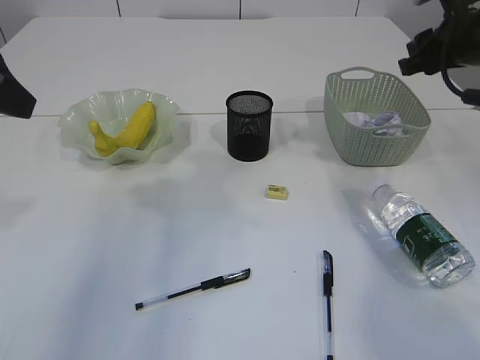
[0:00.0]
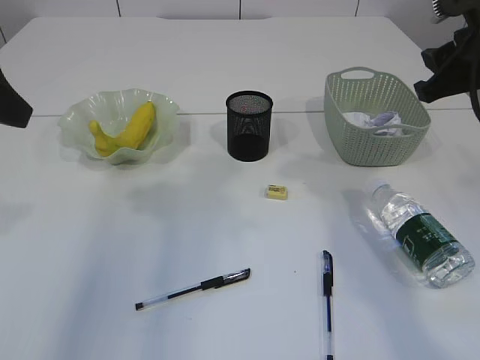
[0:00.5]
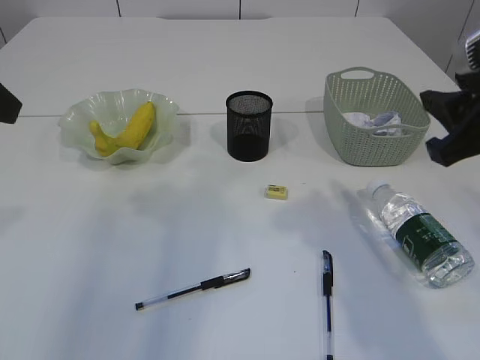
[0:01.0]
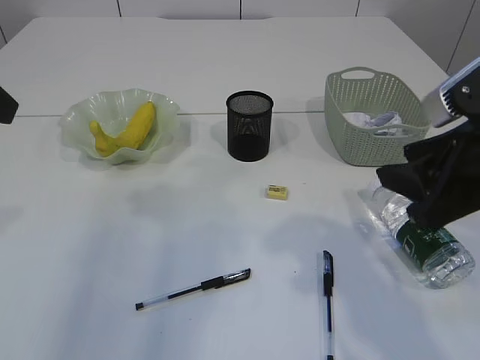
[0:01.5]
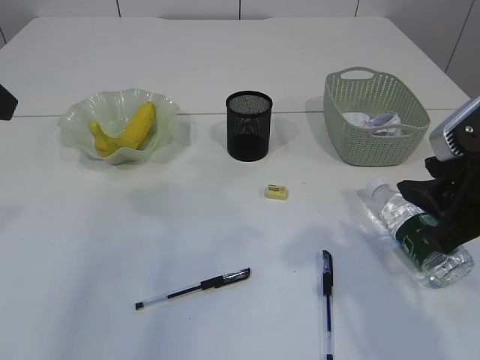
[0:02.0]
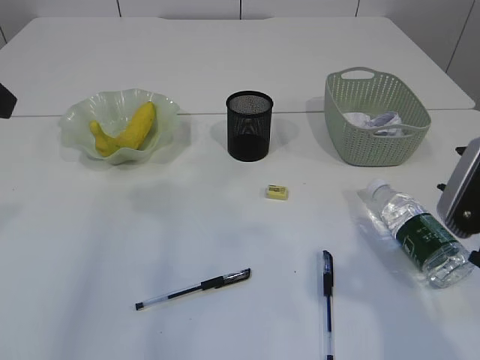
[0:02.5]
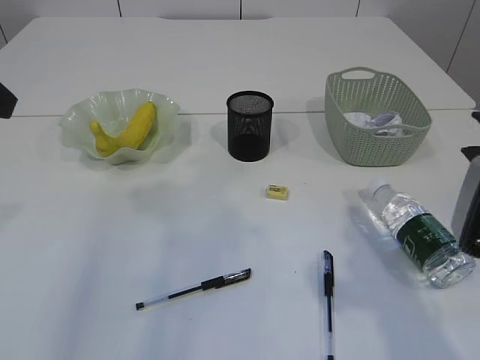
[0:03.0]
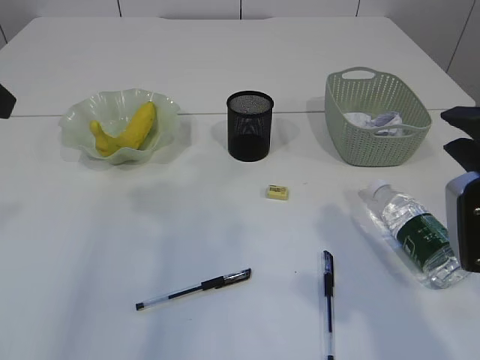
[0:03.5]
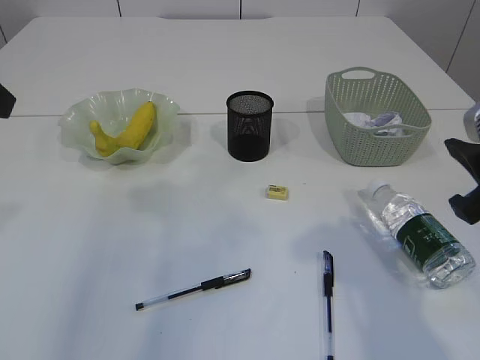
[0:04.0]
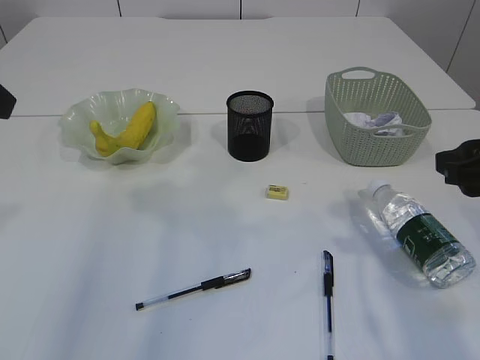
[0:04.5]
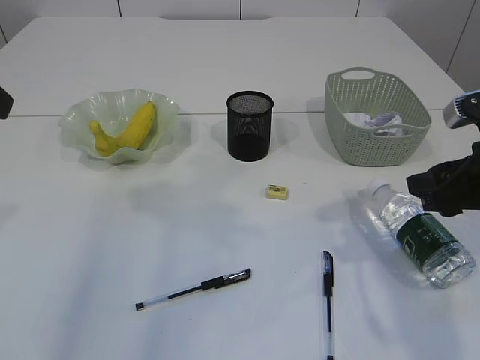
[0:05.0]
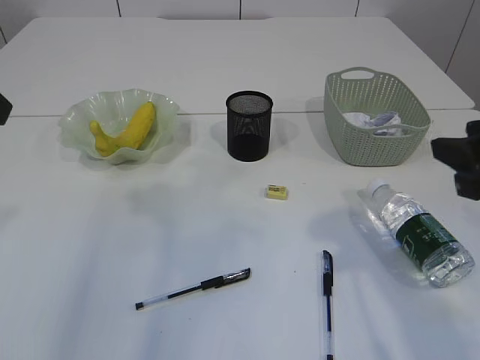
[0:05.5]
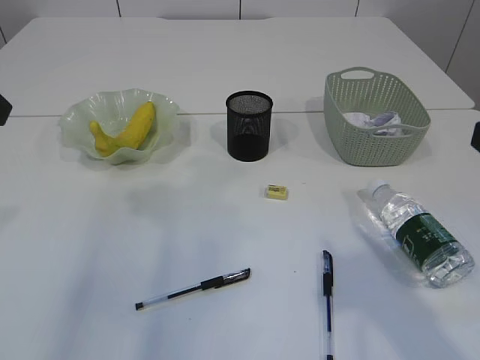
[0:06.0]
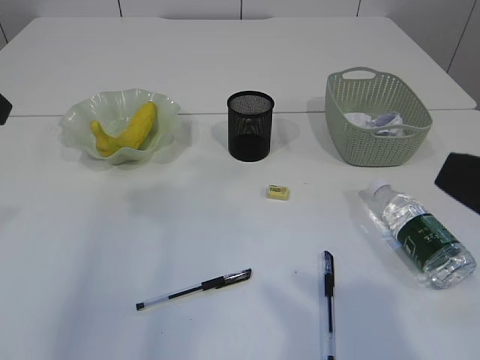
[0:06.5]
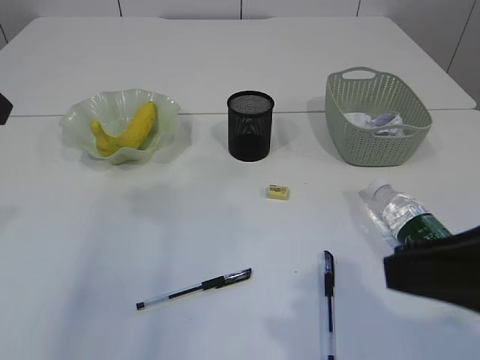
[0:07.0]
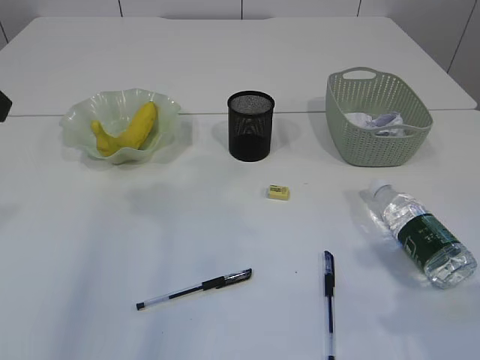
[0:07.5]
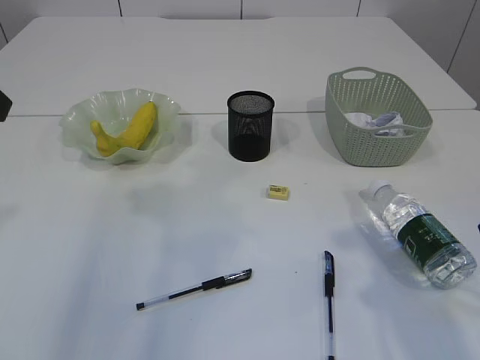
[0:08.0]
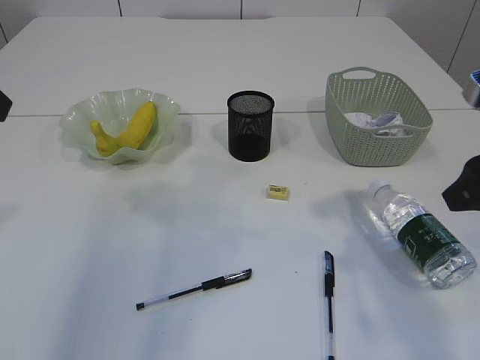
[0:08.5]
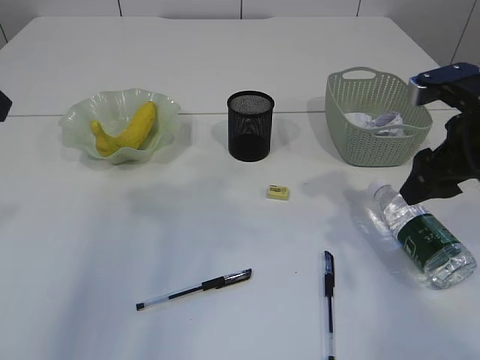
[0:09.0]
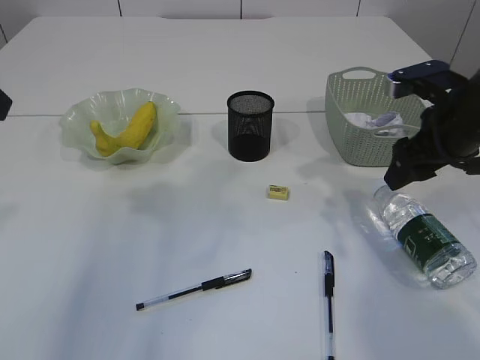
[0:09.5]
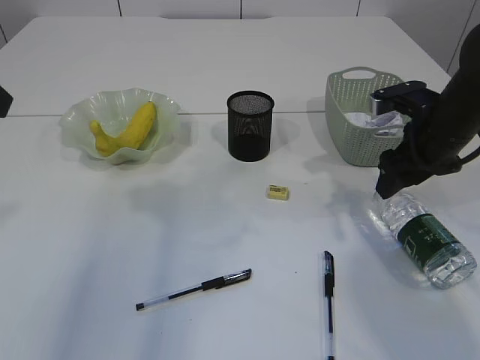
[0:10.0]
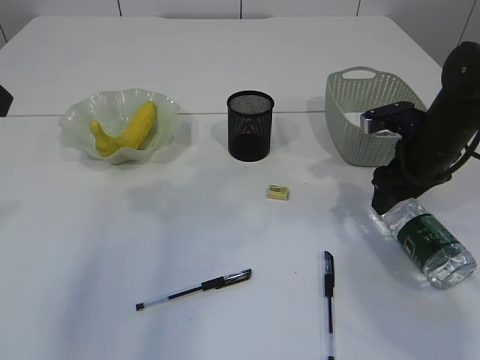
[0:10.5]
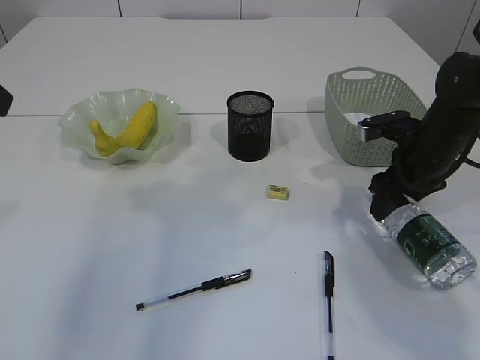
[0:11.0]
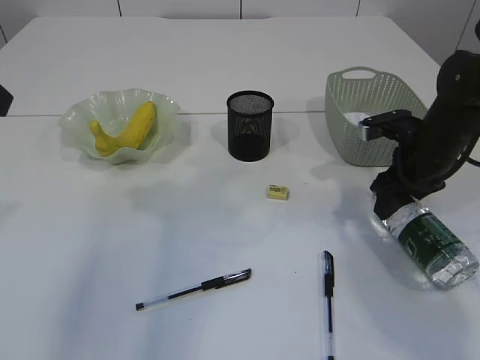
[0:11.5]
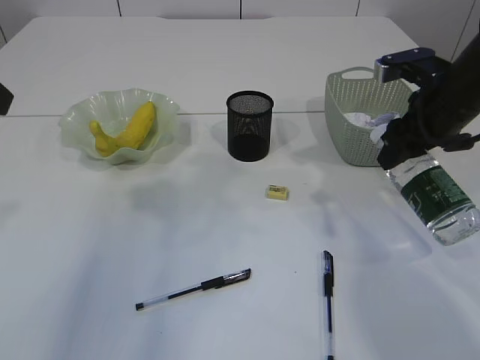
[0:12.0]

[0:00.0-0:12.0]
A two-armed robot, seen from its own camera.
0:00.0 to 0:02.0: The right gripper is displaced backward by roughly 20 cm.
0:04.0 to 0:06.0: The right gripper travels backward by approximately 5 cm.
0:06.0 to 0:08.0: The right gripper moves approximately 5 cm.
0:08.0 to 0:10.0: The right gripper travels forward by about 20 cm.
0:10.0 to 0:12.0: There are only small adjustments of the grippers.

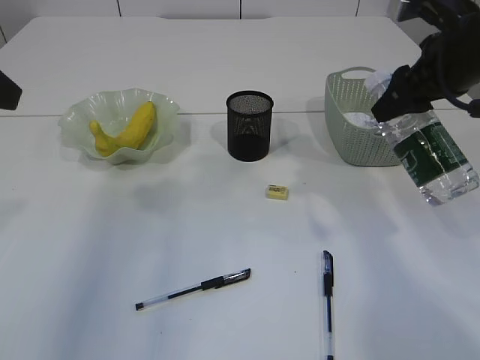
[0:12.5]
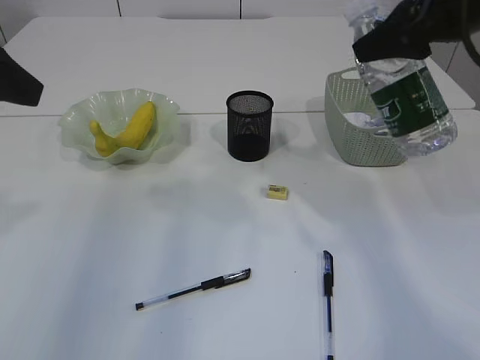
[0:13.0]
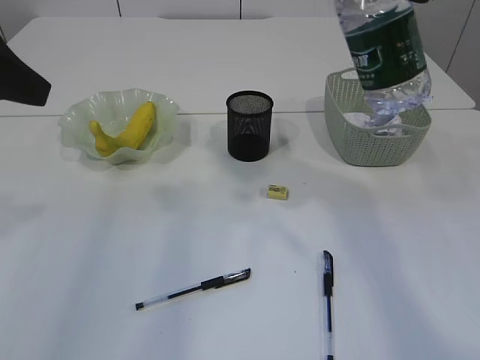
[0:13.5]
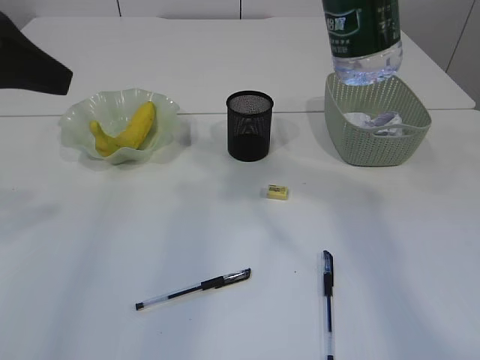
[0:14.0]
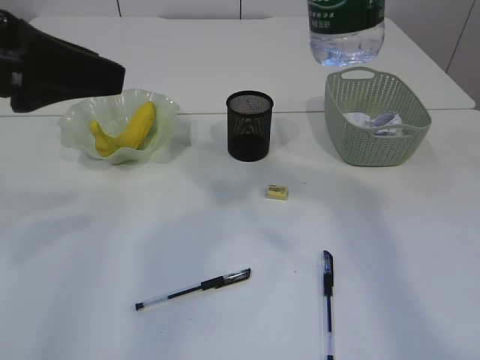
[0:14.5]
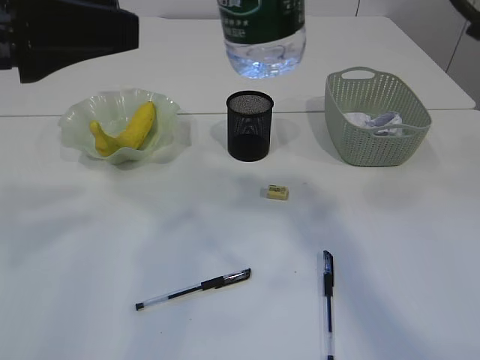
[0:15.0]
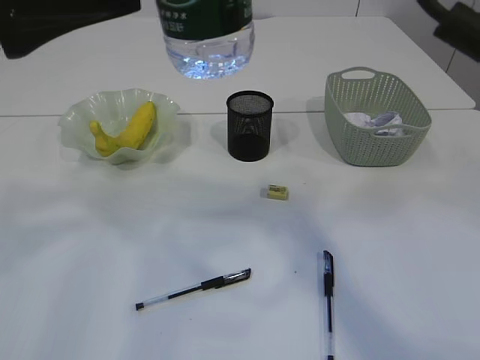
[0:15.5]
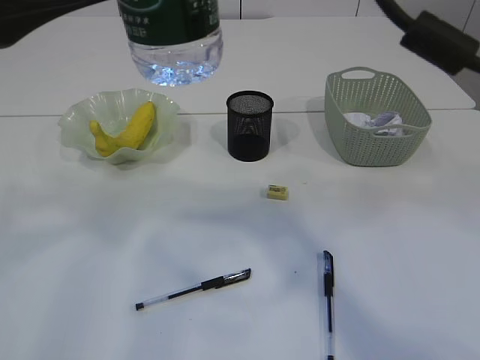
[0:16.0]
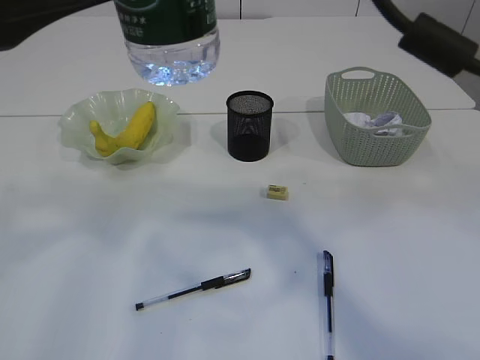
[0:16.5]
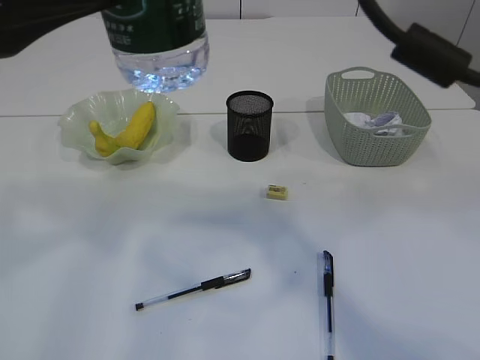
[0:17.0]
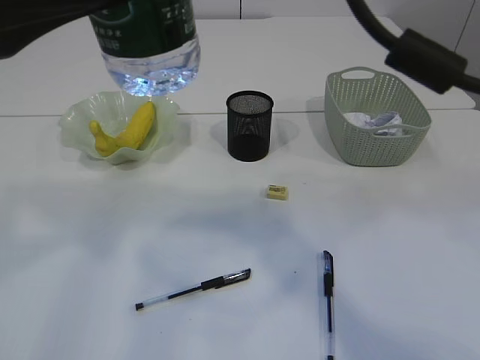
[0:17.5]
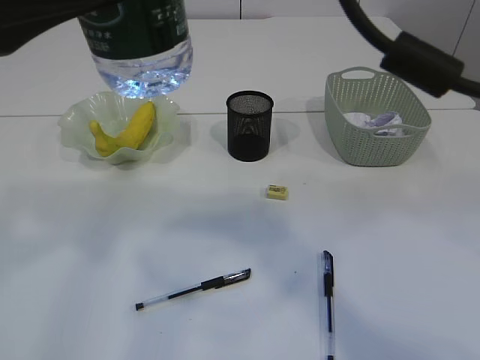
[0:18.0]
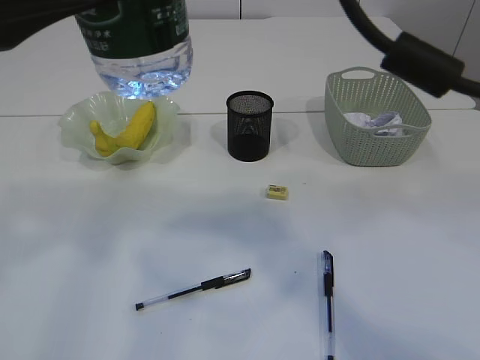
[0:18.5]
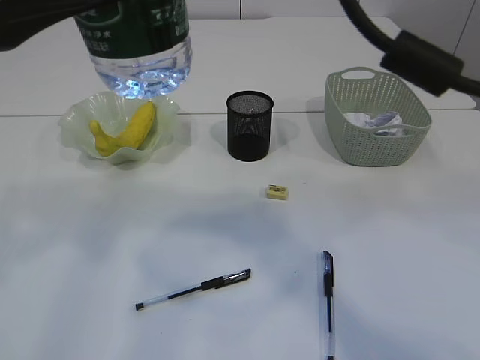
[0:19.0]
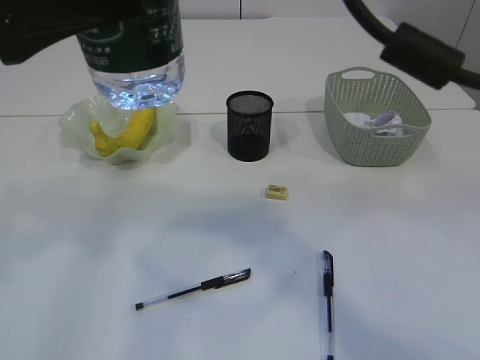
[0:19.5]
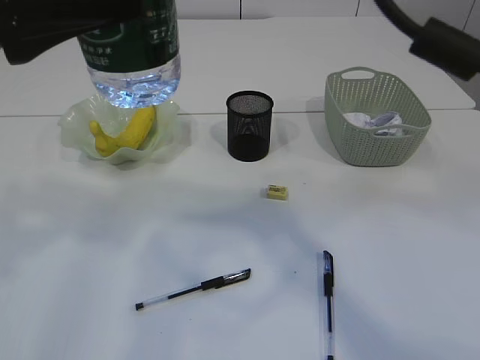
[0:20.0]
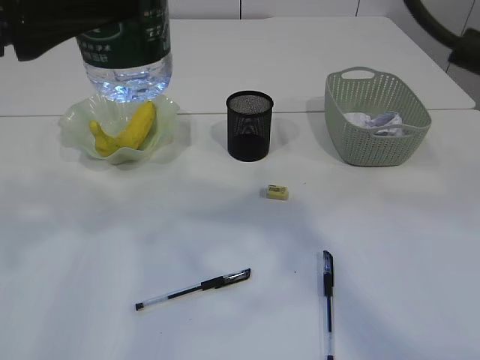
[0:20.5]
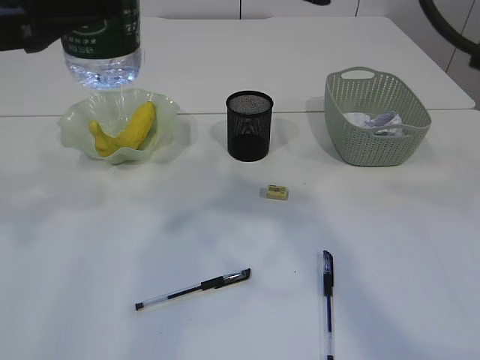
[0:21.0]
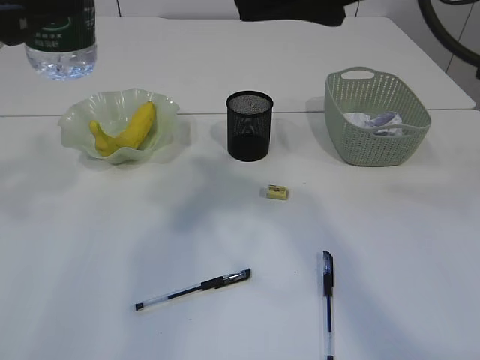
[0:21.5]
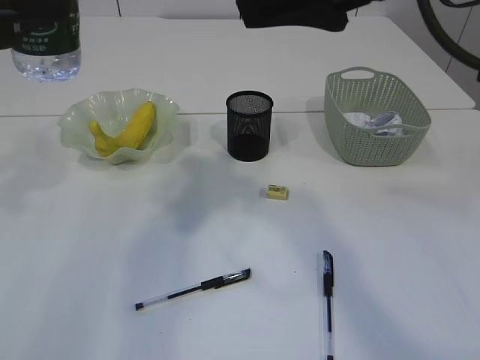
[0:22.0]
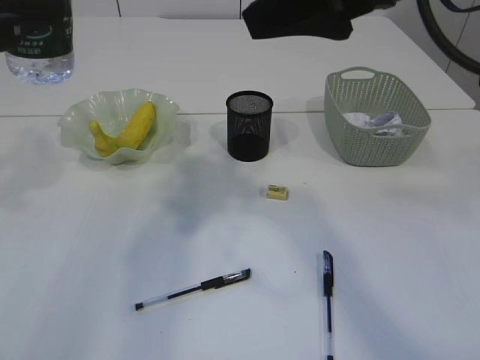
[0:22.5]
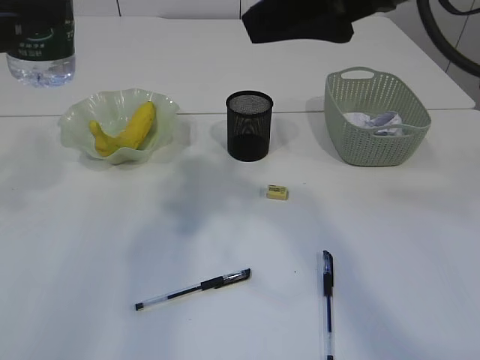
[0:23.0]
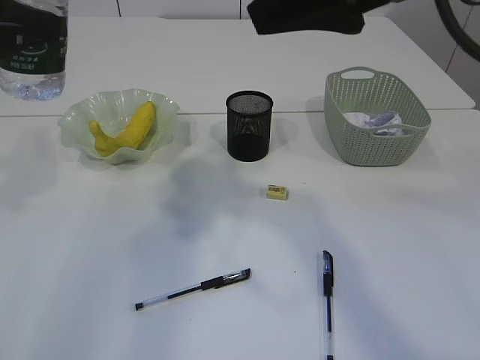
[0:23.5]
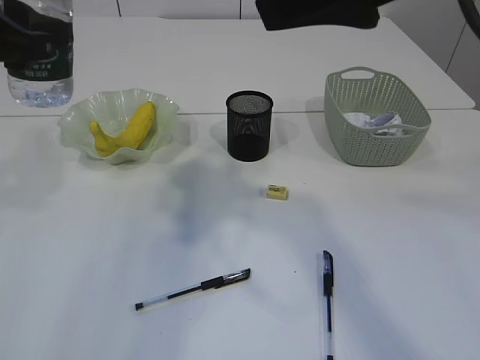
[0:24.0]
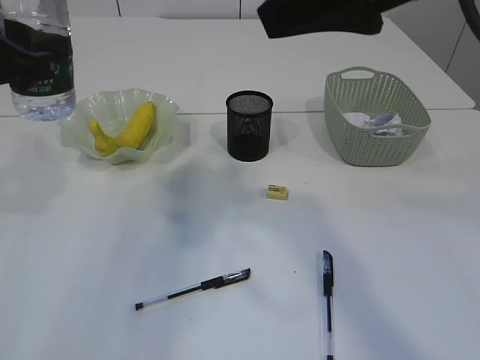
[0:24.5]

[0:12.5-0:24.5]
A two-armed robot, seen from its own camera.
Step, 0:12.5 to 0:20.5: transfer the bottle to the left arm.
0:12.5 to 0:14.5: The right gripper moves upward and backward, roughly 15 cm.
0:14.5 to 0:16.5: The right gripper goes about 10 cm to the left.
0:16.5 to 0:18.5: There are only small adjustments of the grippers.
0:18.5 to 0:20.5: The right gripper opens.
0:20.5 to 0:22.5: The right gripper changes place by approximately 5 cm. Meanwhile the left gripper shifts some 5 cm to the left.
0:22.5 to 0:24.5: The grippers stay close to where they were, moving slightly.

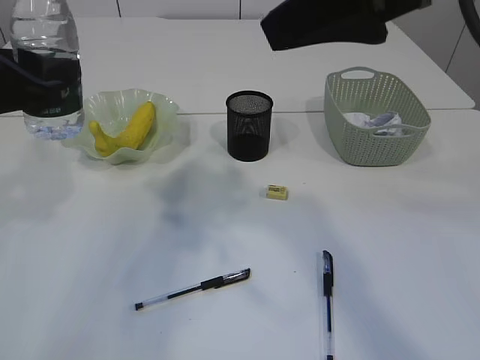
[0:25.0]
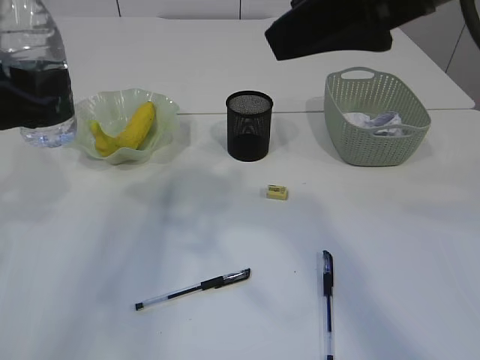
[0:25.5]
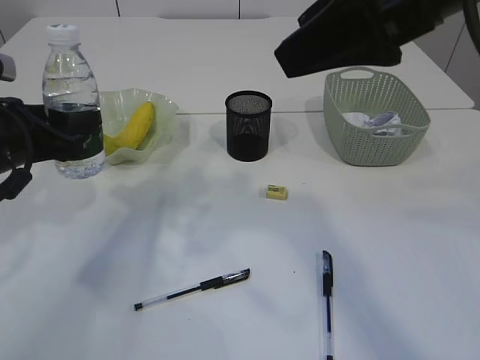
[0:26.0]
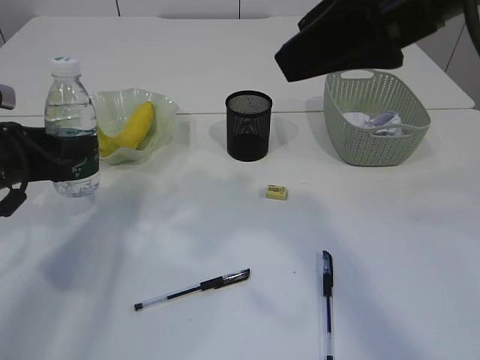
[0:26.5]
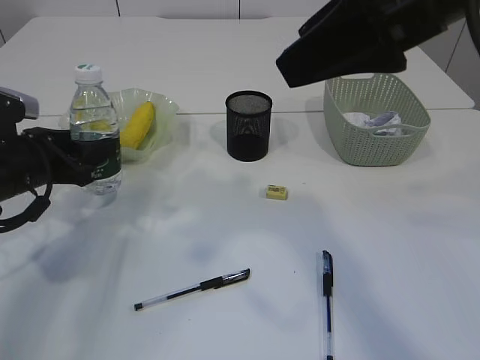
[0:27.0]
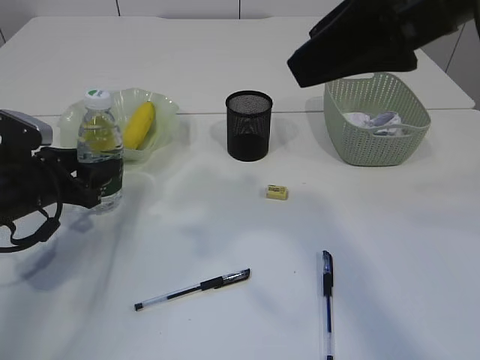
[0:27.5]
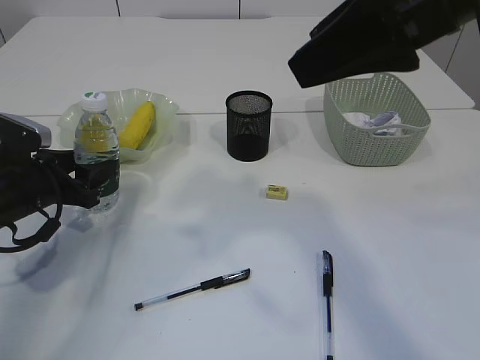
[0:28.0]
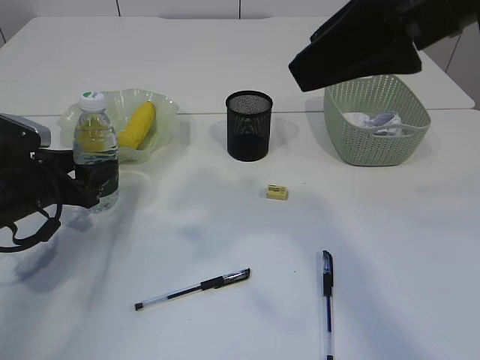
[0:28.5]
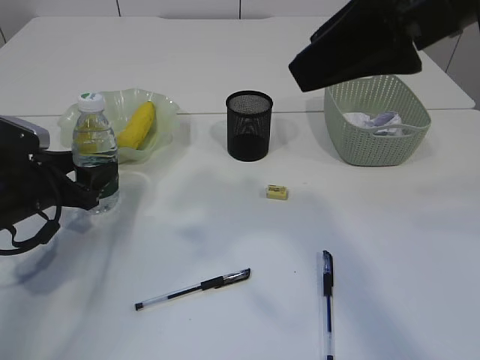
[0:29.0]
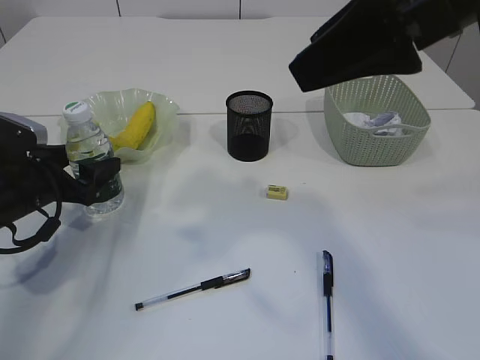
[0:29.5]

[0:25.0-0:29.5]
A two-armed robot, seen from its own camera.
0:25.0 to 0:27.0: The left gripper moves downward and forward, some 15 cm.
0:27.0 to 0:29.5: The left gripper opens.
